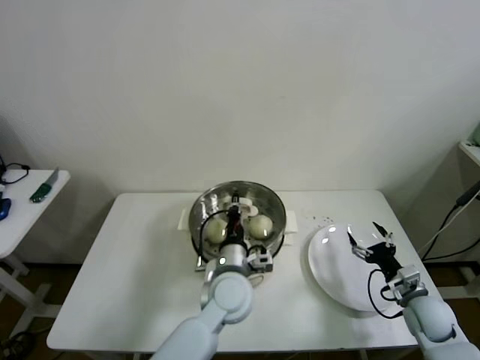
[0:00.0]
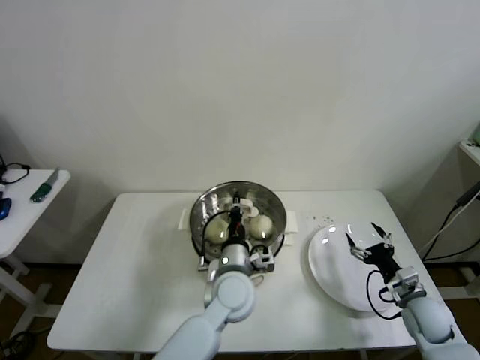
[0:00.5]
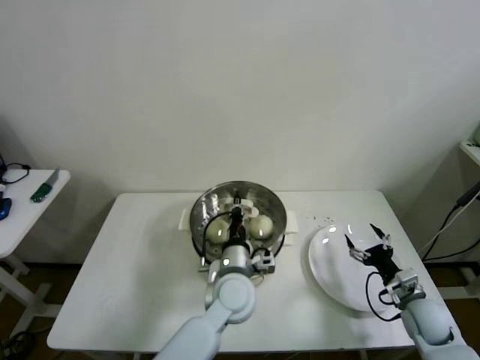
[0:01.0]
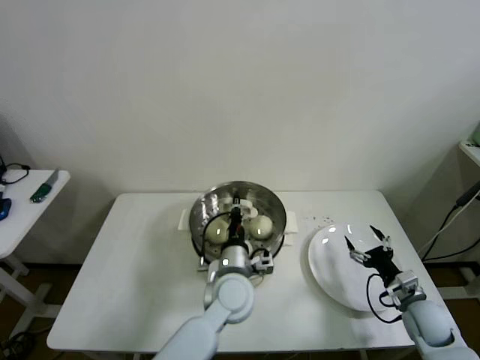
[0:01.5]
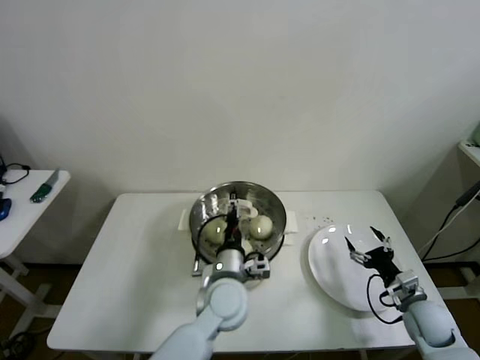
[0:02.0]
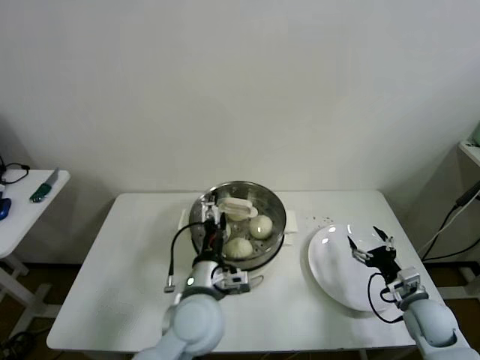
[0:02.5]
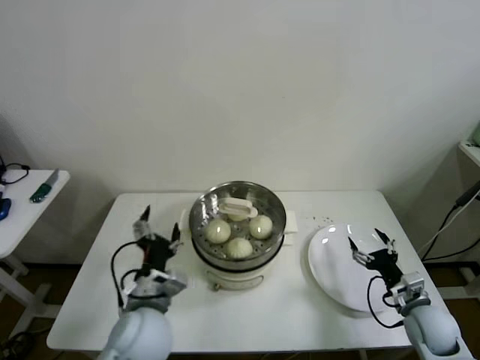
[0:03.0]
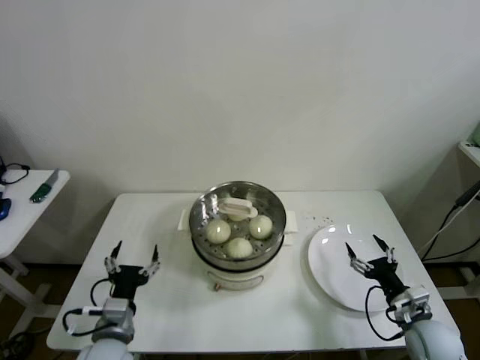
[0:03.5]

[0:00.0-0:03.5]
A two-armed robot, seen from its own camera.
0:00.0 to 0:02.0: The left gripper opens up.
0:02.0 to 0:03.5: The left gripper moves to the left and backward, approximately 25 cm, and opens its fingers; the right gripper moves some 5 cm.

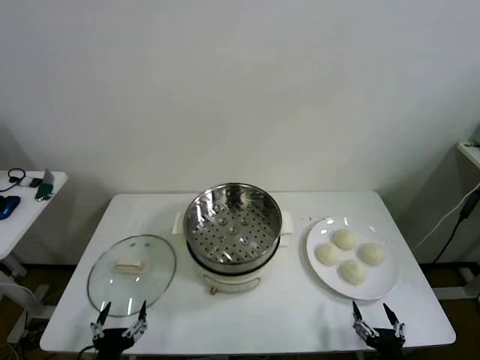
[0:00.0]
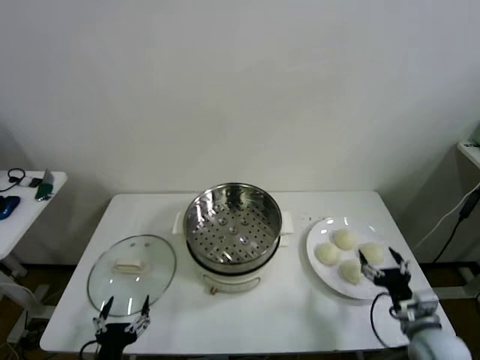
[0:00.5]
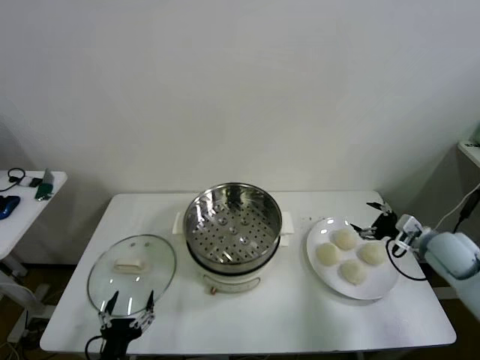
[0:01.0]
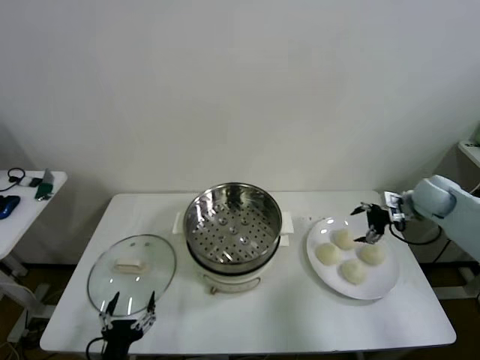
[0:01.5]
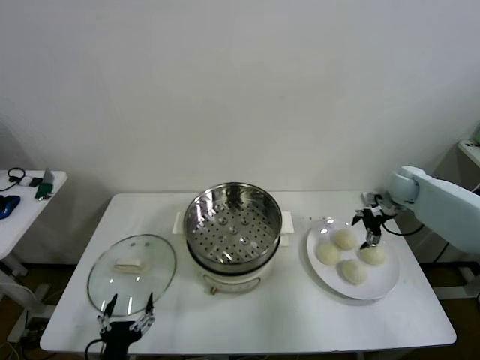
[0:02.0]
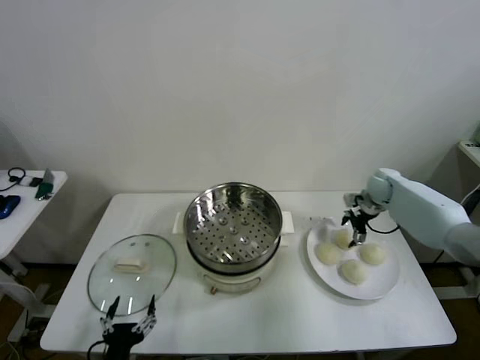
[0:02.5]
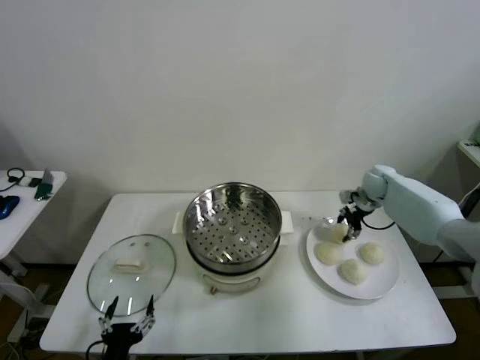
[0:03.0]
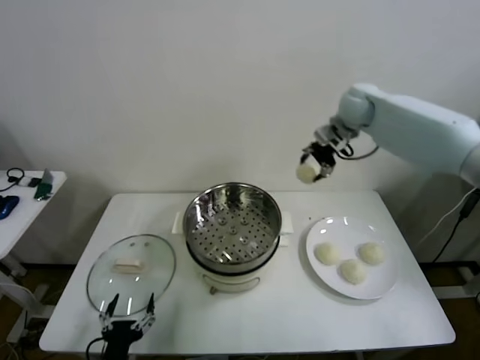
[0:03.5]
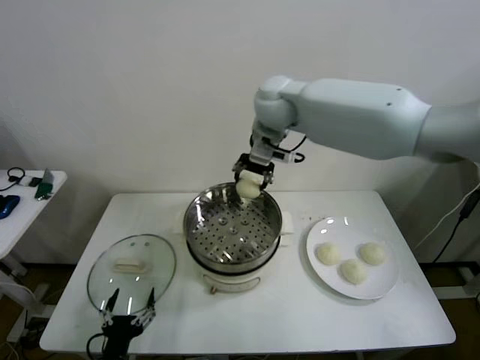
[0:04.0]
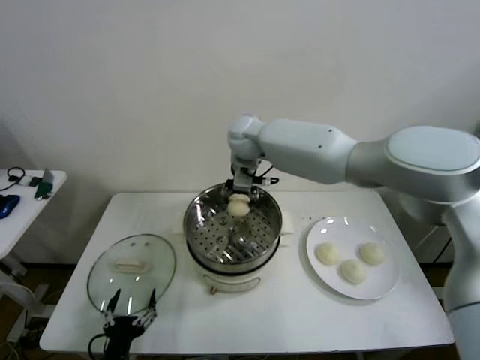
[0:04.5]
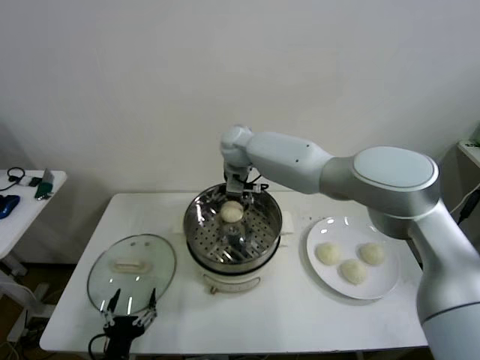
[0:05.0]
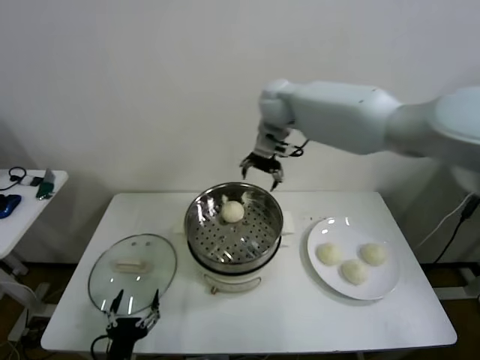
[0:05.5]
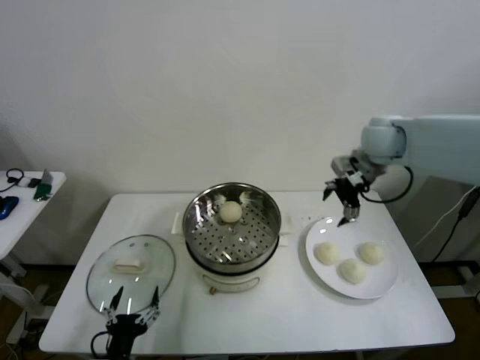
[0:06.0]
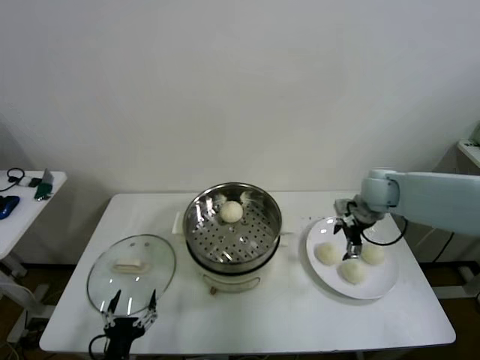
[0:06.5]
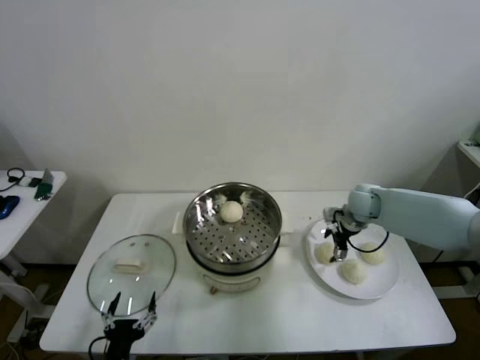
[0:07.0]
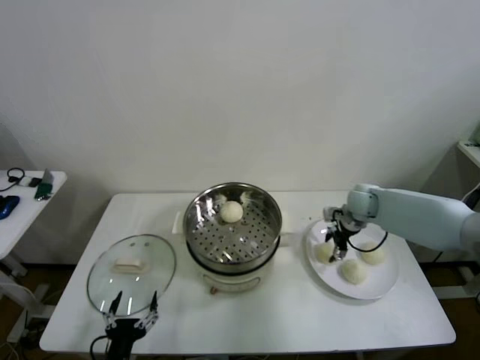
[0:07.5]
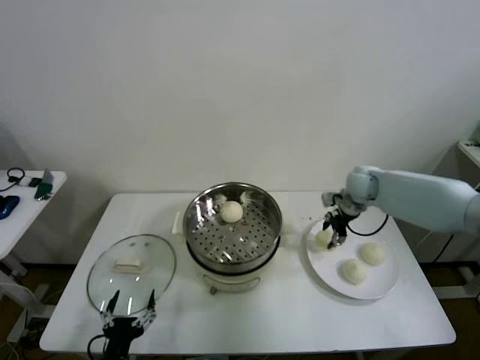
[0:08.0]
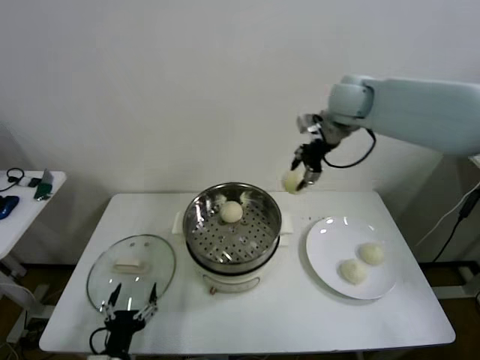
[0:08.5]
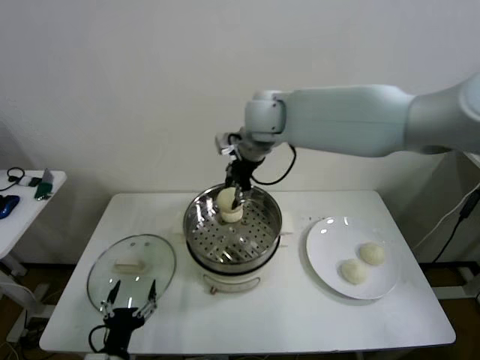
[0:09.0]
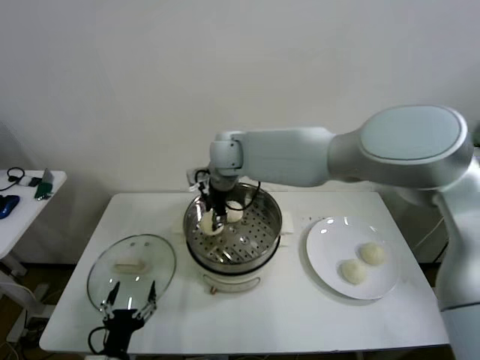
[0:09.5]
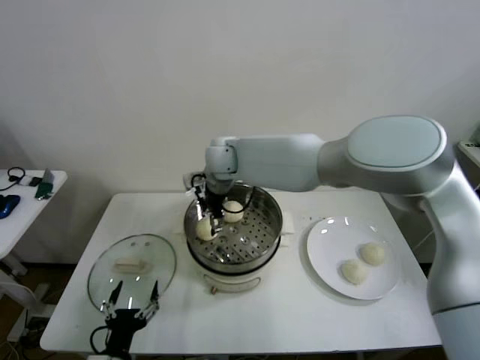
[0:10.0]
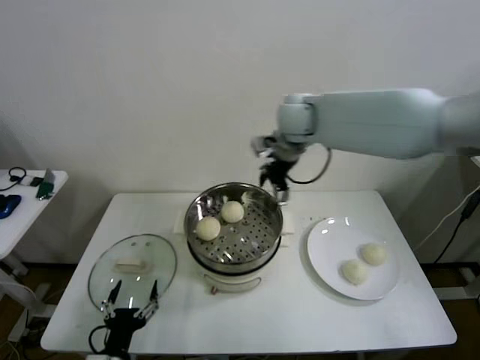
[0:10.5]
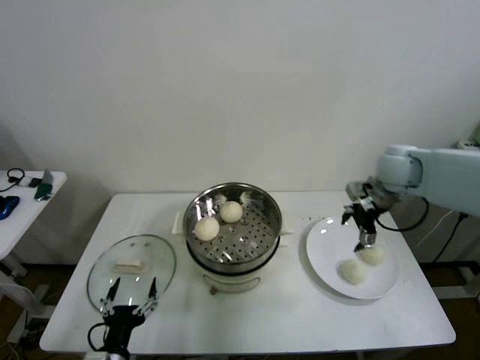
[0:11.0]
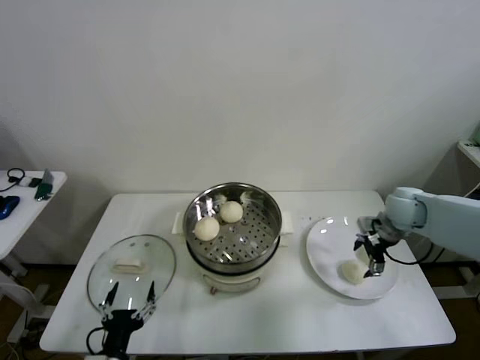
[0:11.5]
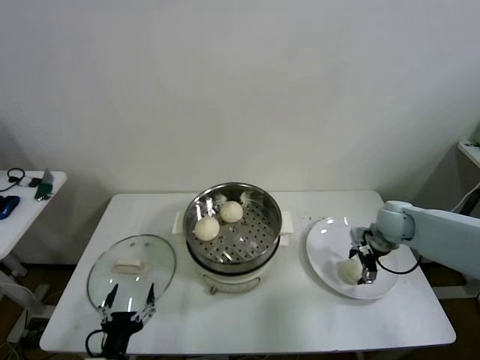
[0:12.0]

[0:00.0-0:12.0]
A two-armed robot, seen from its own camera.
Step, 0:00.0 to 0:02.5: Grasp the baozi in the plate with right gripper.
Step, 0:03.0 to 0:04.5: Place the baozi on the steamer with right gripper.
Step, 0:05.0 to 0:07.5: Grasp the baozi in the plate with right gripper.
Step, 0:08.0 to 0:09.5: Place the baozi on the steamer with right gripper.
0:02.0 to 0:04.0: The right gripper shifts about 40 cm to the left and upward, and closes.
0:04.0 to 0:06.0: The right gripper goes about 25 cm to the right, and opens its fingers.
0:06.0 to 0:08.0: The right gripper moves downward, roughly 10 cm, and closes up.
0:08.0 to 0:10.0: The right gripper is displaced to the left by approximately 35 cm, and opens its fingers.
0:10.0 to 0:12.0: The right gripper heads to the right, covering approximately 40 cm.

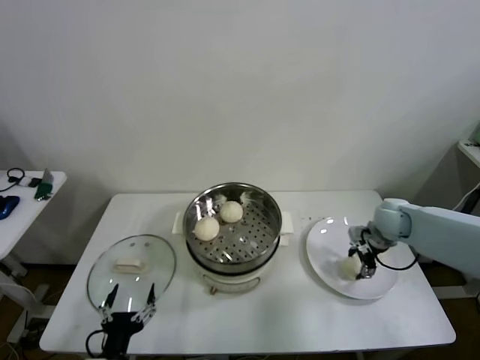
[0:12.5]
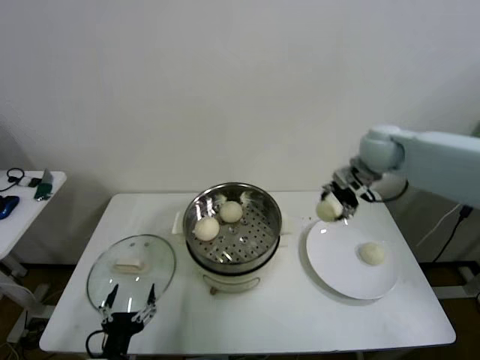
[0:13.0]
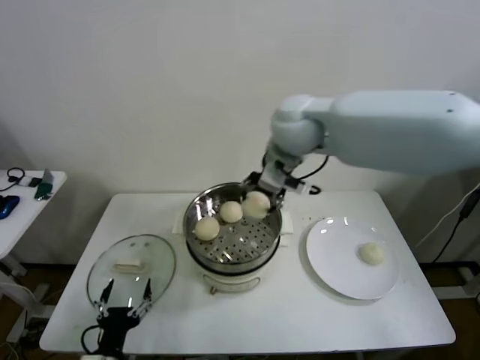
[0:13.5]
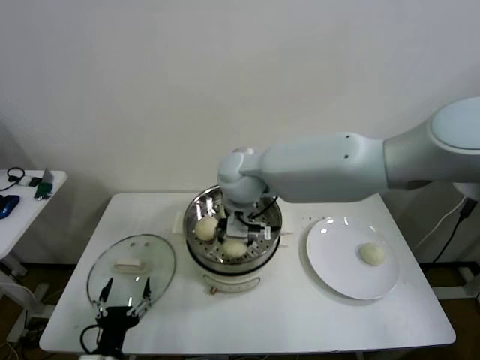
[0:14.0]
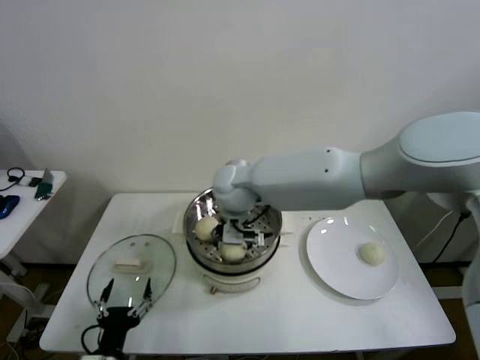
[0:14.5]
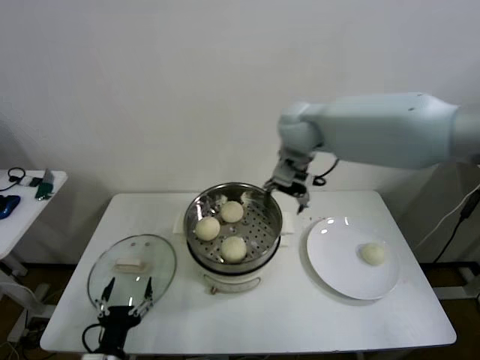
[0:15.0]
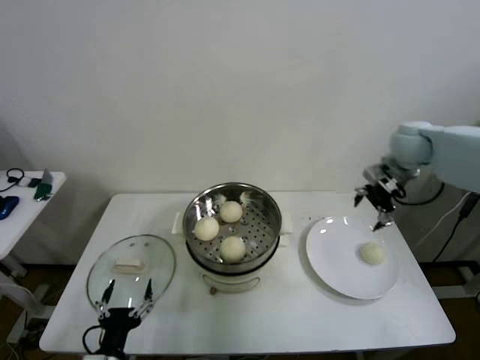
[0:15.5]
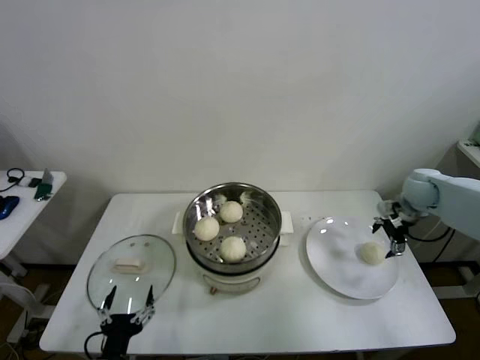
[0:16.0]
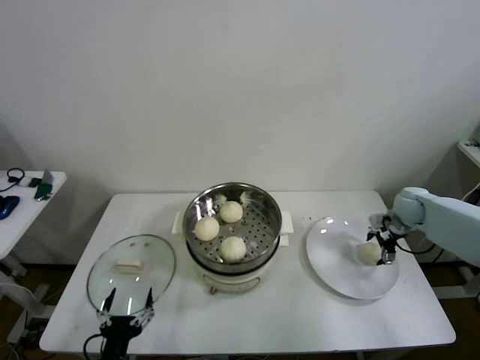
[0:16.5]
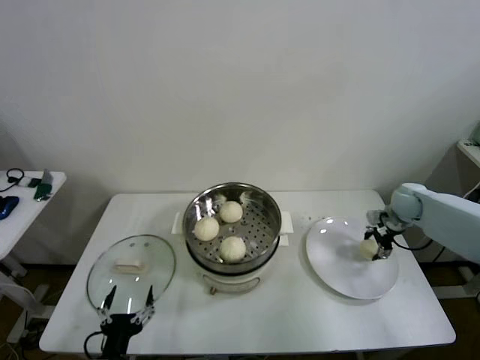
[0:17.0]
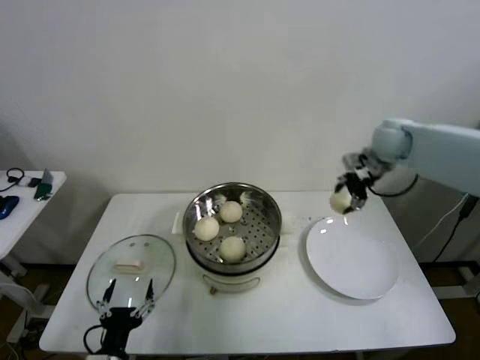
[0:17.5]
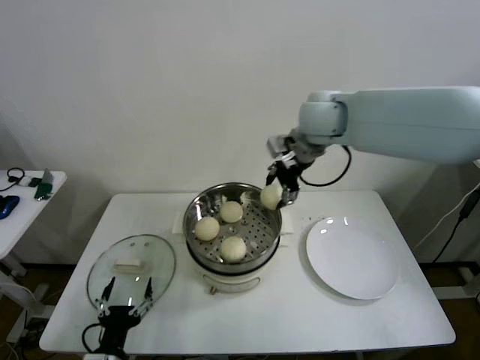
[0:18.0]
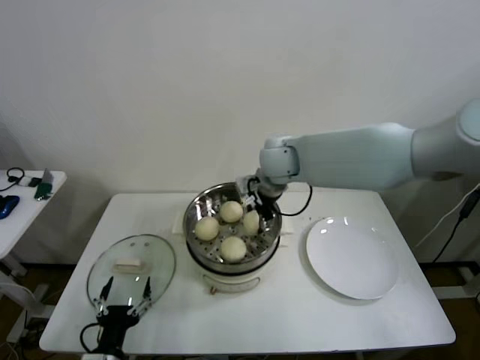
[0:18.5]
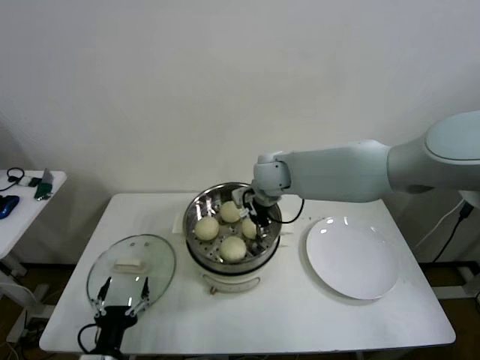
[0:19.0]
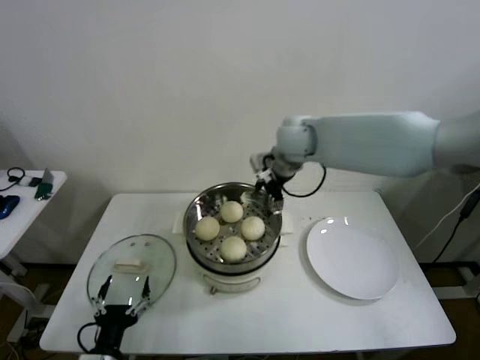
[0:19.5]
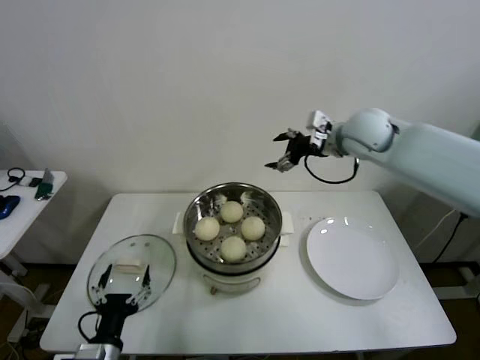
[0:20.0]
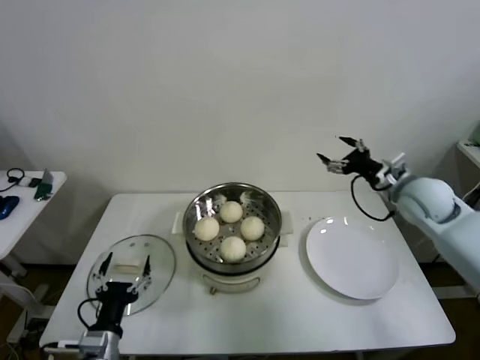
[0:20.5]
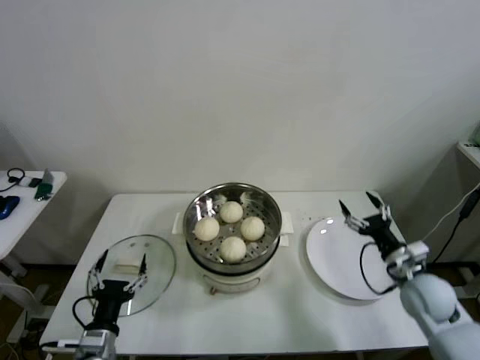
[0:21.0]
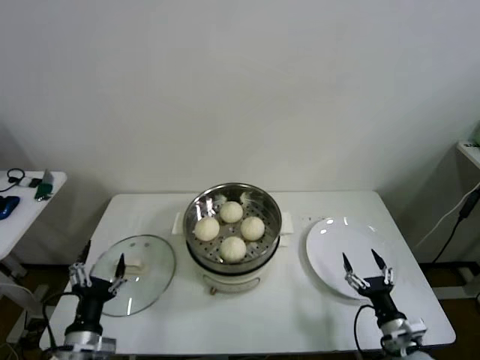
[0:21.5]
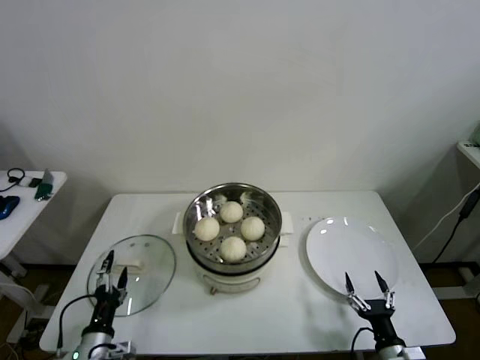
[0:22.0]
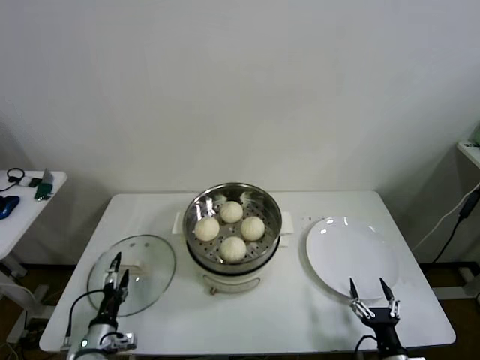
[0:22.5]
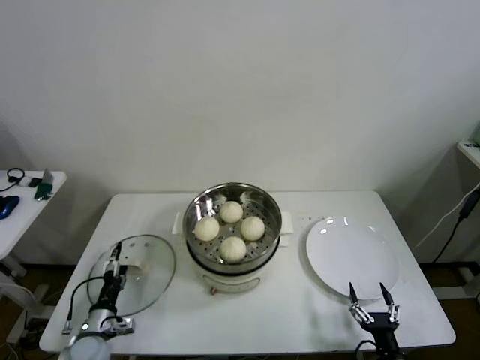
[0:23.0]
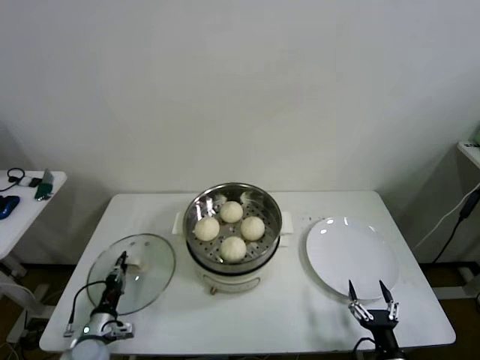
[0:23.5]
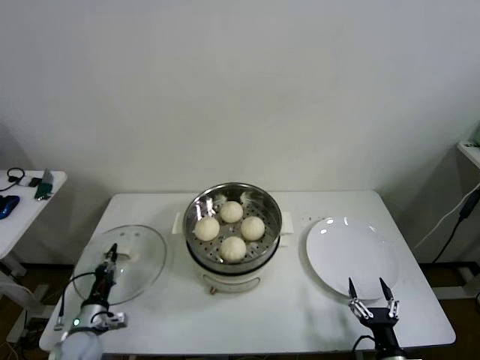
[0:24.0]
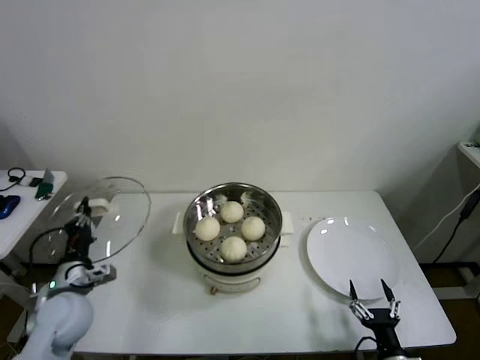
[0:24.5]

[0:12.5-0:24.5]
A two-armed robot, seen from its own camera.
Step, 0:12.5 to 0:14.0: Place the baozi on the steamer with right gripper.
Step, 0:14.5 to 0:16.5: Grasp the baozi in the plate with right gripper.
Step, 0:17.0 to 0:19.0: Place the baozi on the steamer with right gripper.
Step, 0:19.5 to 0:23.5: Grasp the pot lid with left gripper.
0:12.5 to 0:14.5: The right gripper travels to the left by approximately 40 cm, and opens up.
0:14.5 to 0:16.5: The right gripper heads to the right, covering approximately 50 cm.
0:16.5 to 0:18.5: The right gripper shifts approximately 40 cm to the left and upward, and closes its fingers.
0:18.5 to 0:20.5: The right gripper goes some 30 cm to the right, and opens.
0:20.5 to 0:22.5: The right gripper shifts about 40 cm backward and downward. The left gripper shifts about 15 cm downward and to the left.
0:22.5 to 0:24.5: The left gripper travels upward and forward by approximately 15 cm, and closes up.
